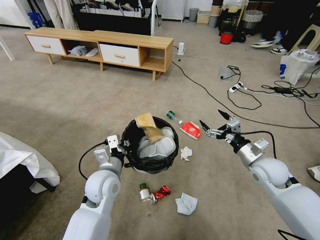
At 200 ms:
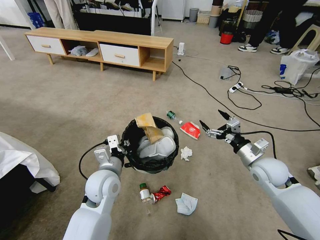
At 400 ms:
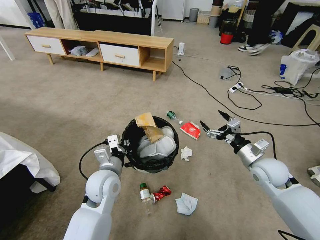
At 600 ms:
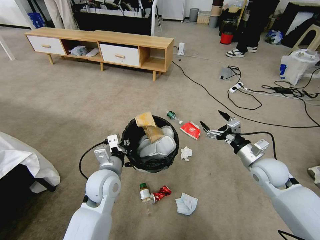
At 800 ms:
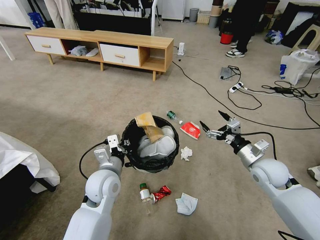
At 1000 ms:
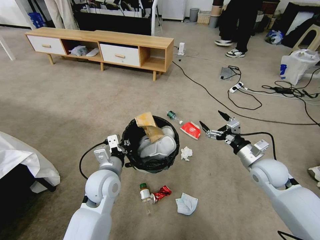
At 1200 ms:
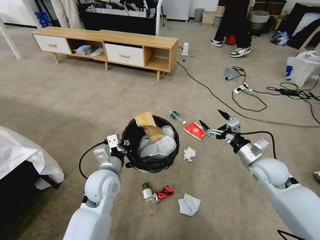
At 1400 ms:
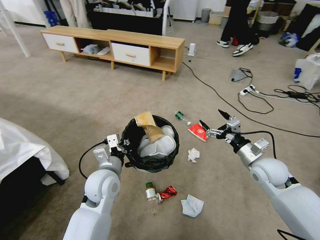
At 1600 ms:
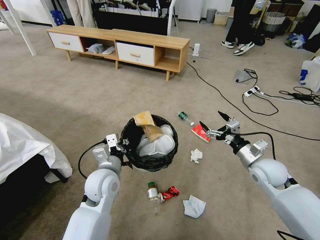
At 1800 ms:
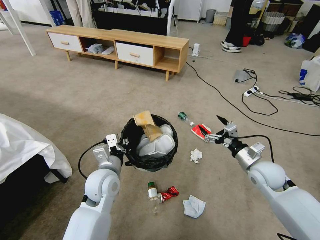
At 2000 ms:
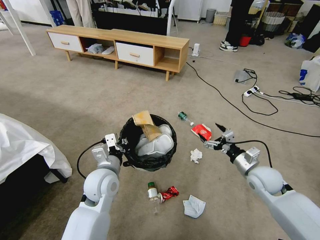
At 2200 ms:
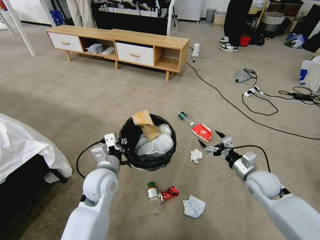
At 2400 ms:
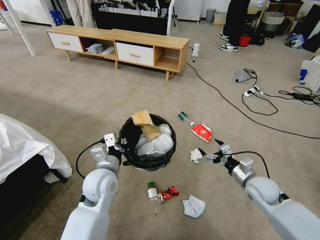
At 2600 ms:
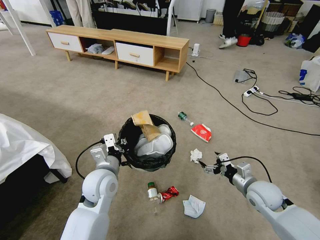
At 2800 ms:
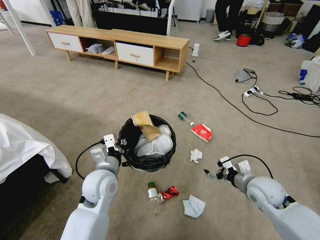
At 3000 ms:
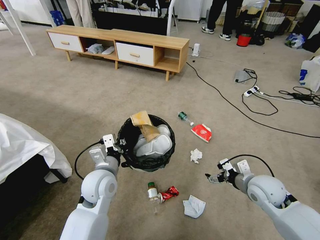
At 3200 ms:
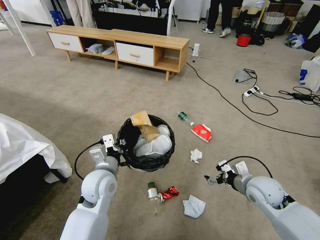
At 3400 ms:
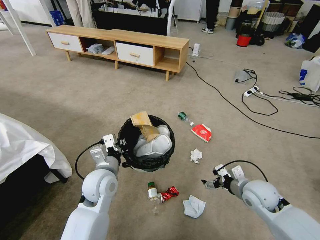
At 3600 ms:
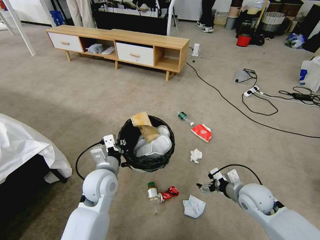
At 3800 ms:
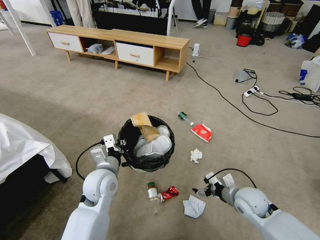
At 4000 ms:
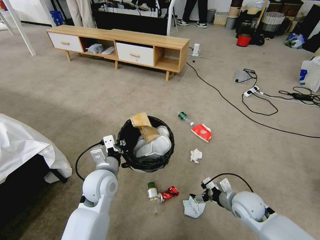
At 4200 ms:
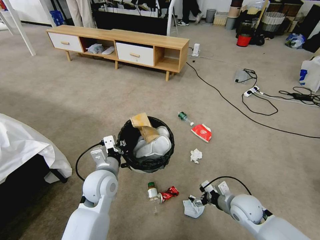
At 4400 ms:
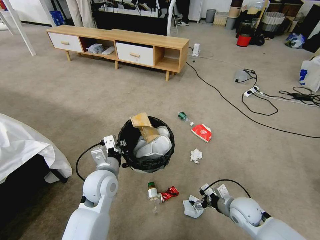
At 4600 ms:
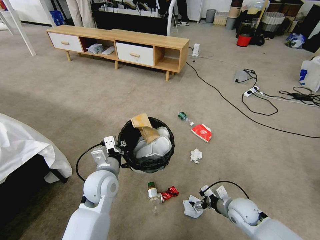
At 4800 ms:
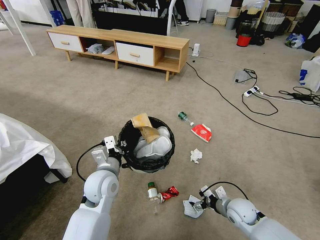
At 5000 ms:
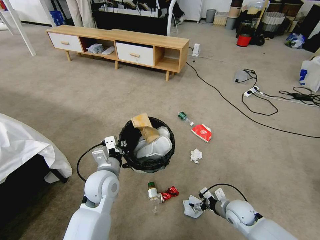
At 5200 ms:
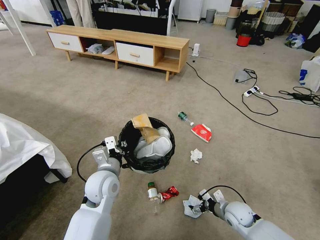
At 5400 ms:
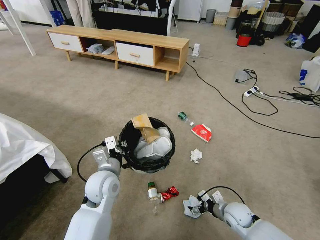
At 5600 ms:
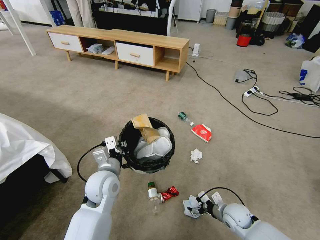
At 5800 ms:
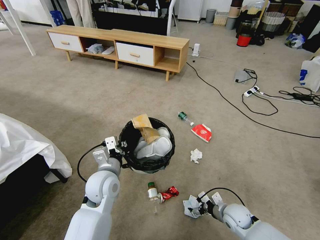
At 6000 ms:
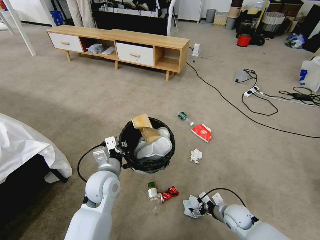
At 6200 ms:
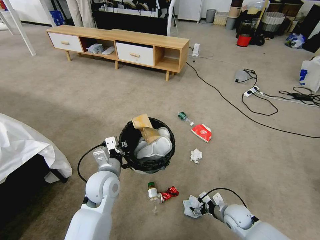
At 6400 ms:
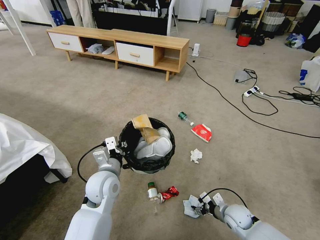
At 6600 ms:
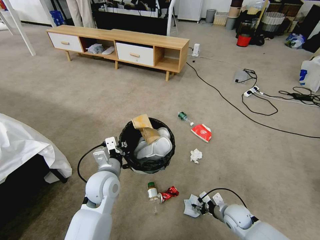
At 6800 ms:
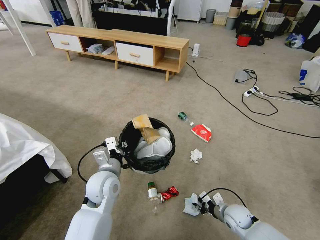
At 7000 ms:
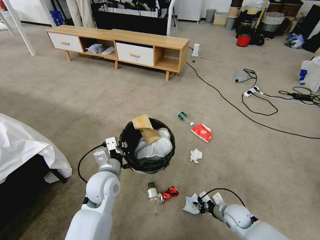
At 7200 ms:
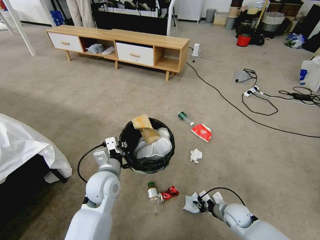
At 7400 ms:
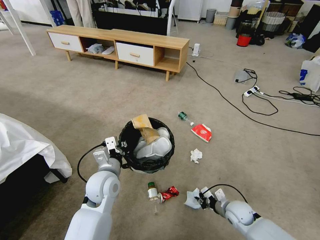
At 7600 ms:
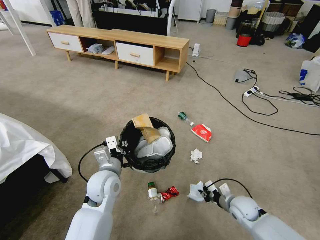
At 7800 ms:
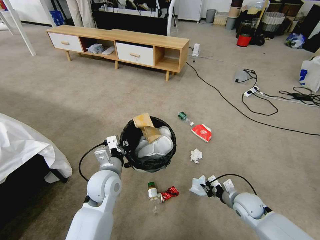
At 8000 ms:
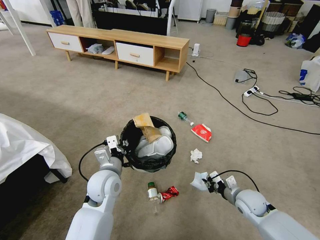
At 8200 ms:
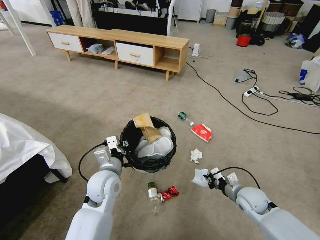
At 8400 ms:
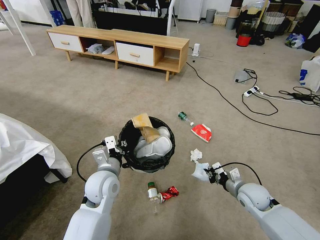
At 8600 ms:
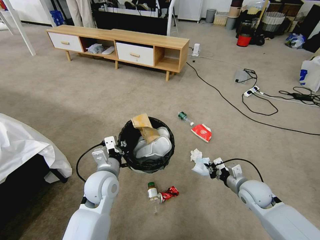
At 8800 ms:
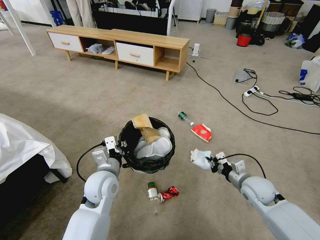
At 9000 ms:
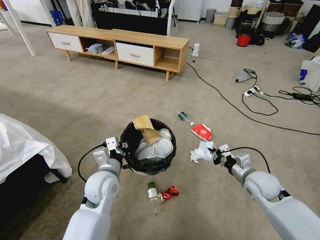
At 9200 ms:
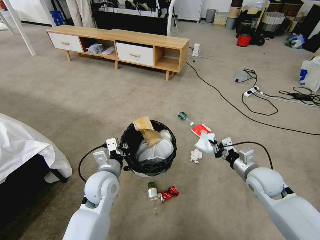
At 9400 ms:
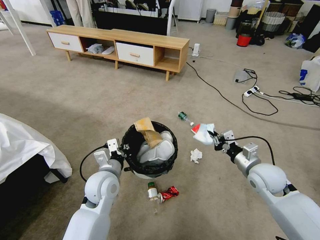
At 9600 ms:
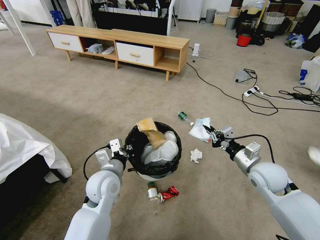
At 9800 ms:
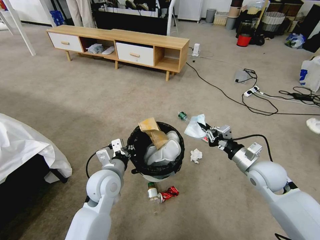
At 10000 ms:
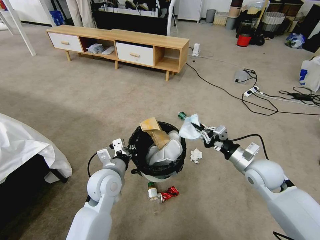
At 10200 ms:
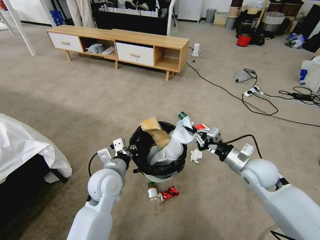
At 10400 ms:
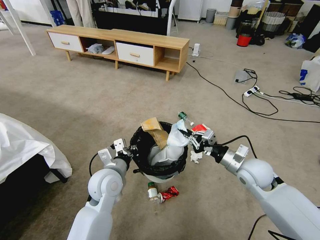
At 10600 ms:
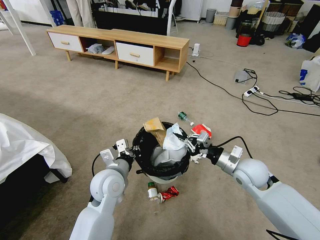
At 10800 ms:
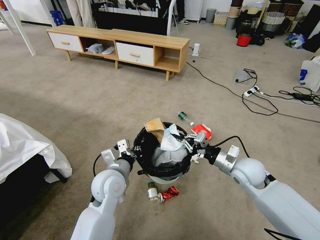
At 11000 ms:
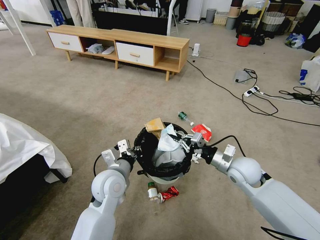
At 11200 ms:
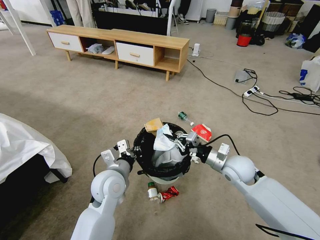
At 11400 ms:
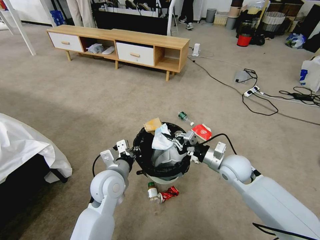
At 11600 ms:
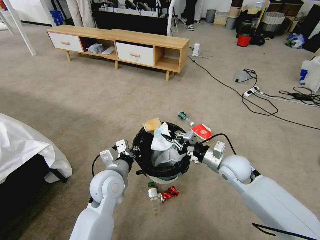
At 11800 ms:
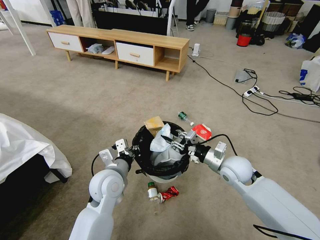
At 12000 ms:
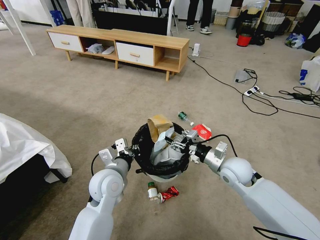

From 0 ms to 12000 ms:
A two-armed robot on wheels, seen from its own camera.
Task of the whole recording: Pick up the trash bin and place the garbage on the floor into it.
From 1600 ms to 3000 ms: The right gripper reaches approximately 10 cm downward, then returns.
From 3000 ms to 4400 ms: The right gripper heads downward, covering some 10 cm.
From 4400 ms to 6000 ms: The right gripper is displaced downward by roughly 5 cm.
From 6000 ms to 7600 ms: The right gripper closes up.
From 7600 ms to 9000 ms: The right gripper moves upward, roughly 15 cm.
From 9000 ms to 10400 ms: The right gripper heads upward, covering roughly 5 cm.
From 10400 ms to 12000 ms: The right gripper shifts approximately 5 cm to the left, and opens its fingers.

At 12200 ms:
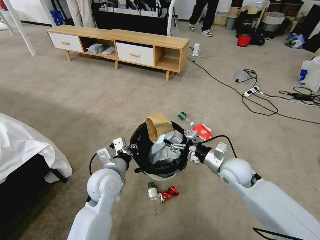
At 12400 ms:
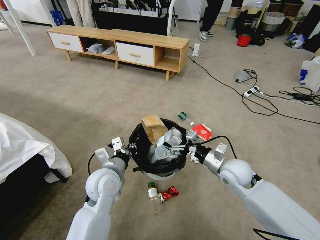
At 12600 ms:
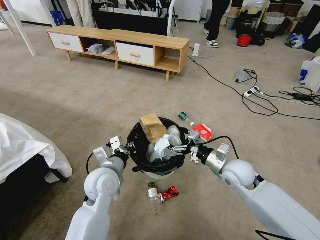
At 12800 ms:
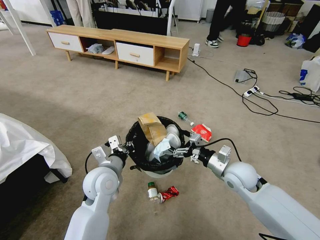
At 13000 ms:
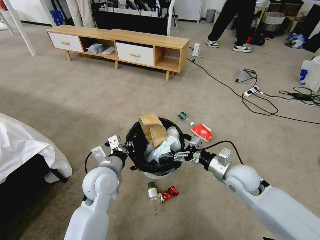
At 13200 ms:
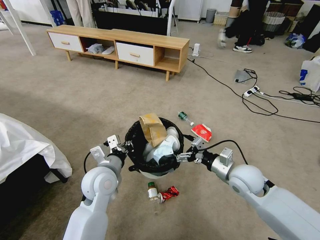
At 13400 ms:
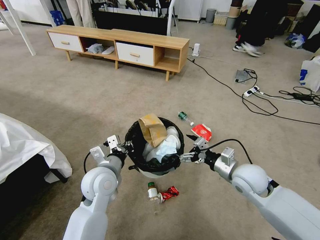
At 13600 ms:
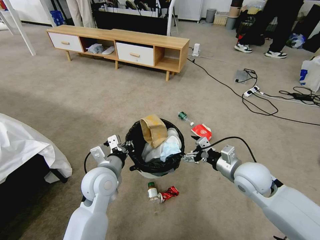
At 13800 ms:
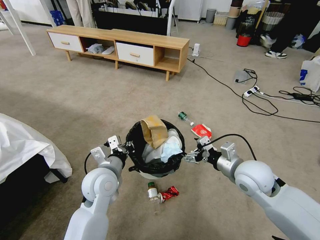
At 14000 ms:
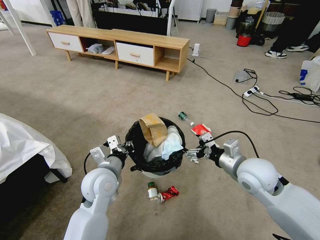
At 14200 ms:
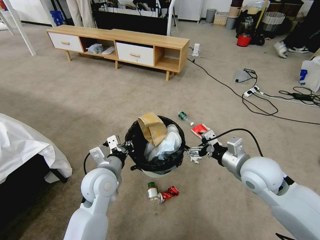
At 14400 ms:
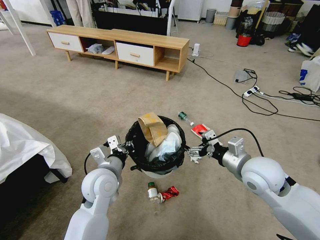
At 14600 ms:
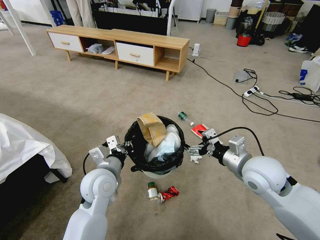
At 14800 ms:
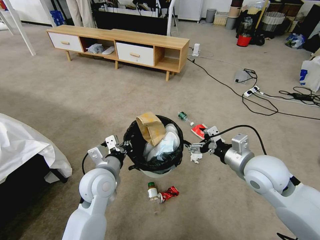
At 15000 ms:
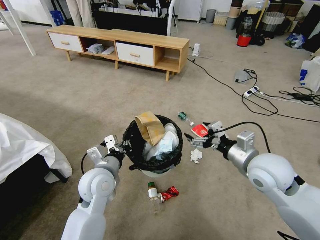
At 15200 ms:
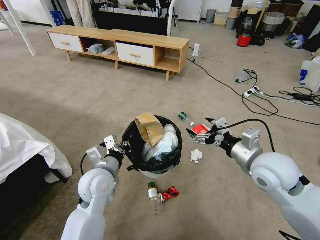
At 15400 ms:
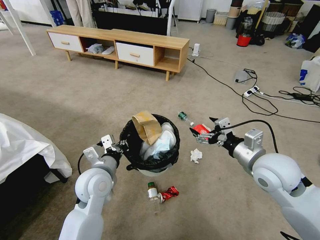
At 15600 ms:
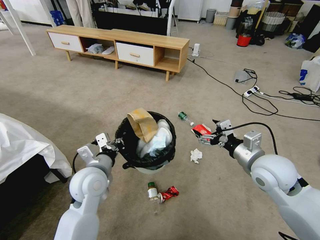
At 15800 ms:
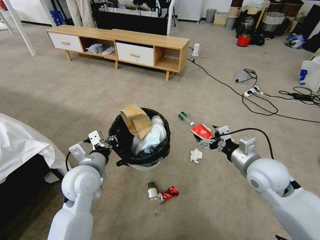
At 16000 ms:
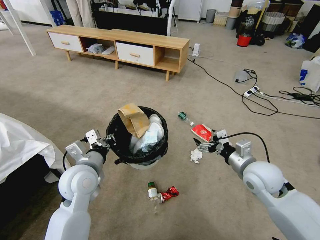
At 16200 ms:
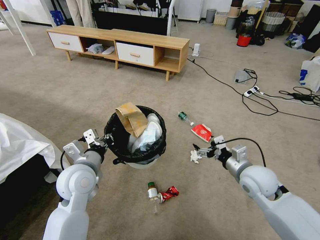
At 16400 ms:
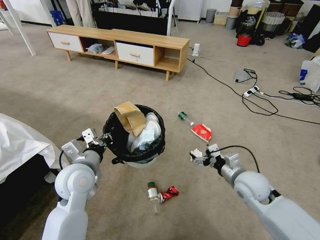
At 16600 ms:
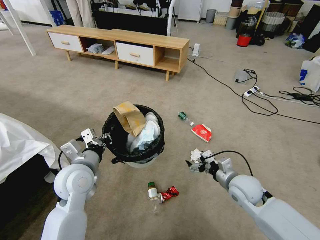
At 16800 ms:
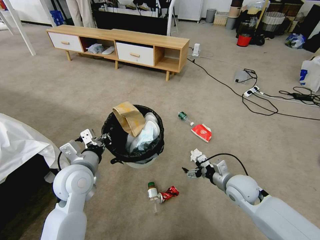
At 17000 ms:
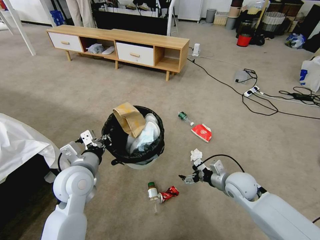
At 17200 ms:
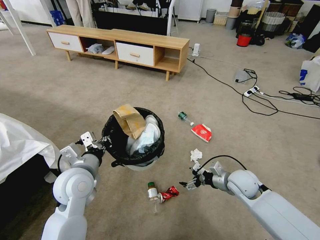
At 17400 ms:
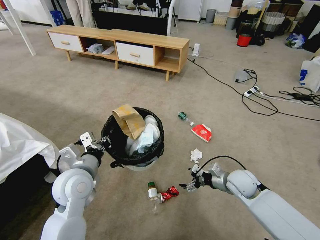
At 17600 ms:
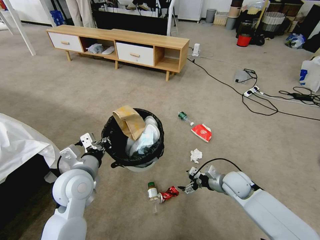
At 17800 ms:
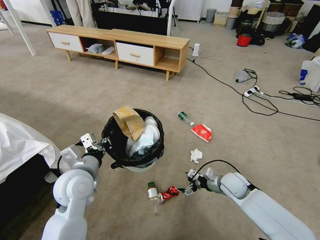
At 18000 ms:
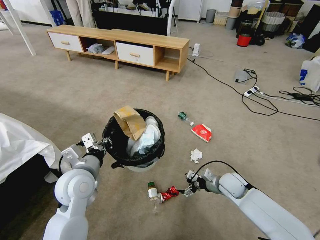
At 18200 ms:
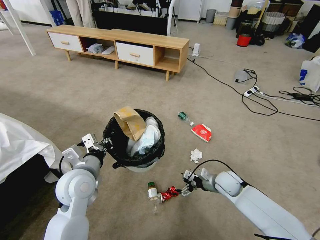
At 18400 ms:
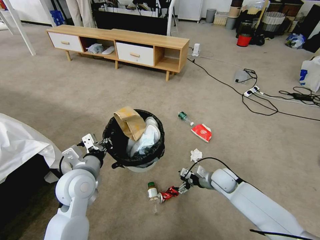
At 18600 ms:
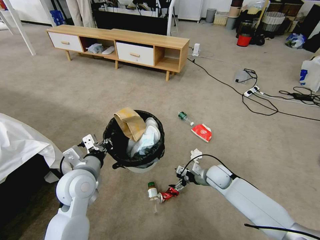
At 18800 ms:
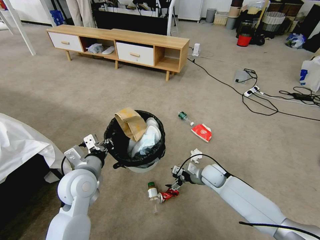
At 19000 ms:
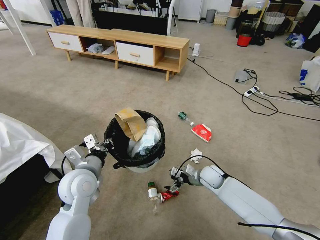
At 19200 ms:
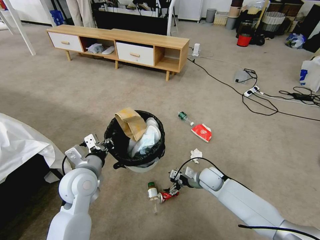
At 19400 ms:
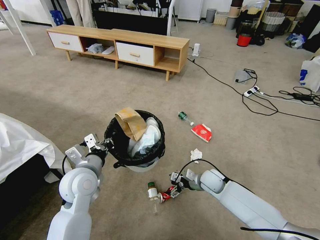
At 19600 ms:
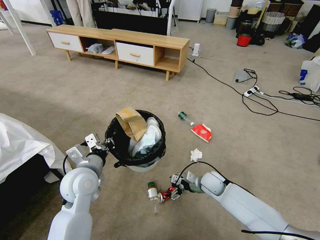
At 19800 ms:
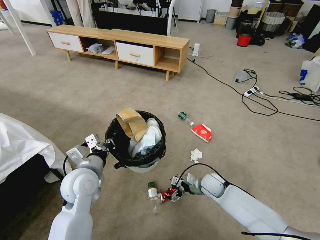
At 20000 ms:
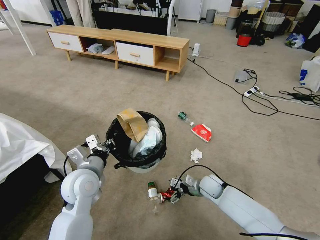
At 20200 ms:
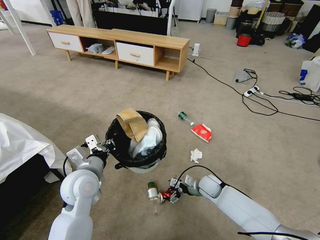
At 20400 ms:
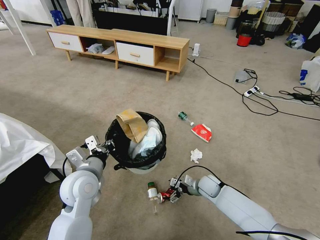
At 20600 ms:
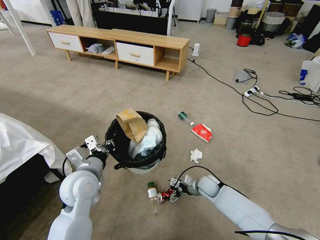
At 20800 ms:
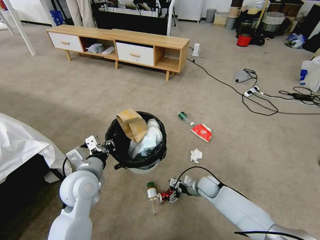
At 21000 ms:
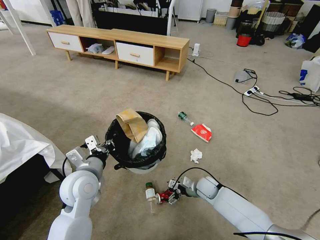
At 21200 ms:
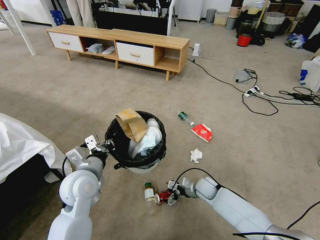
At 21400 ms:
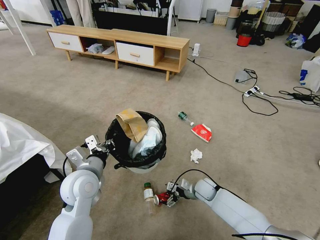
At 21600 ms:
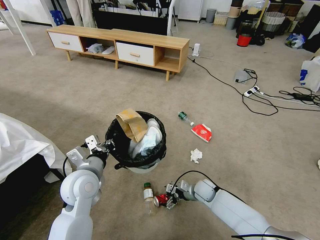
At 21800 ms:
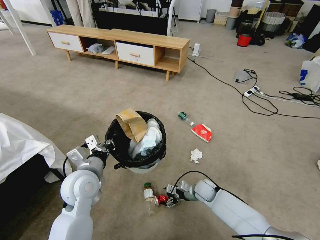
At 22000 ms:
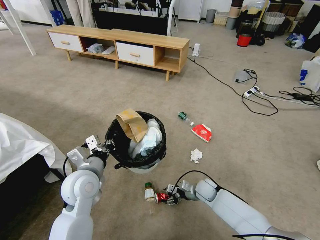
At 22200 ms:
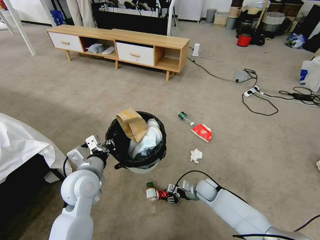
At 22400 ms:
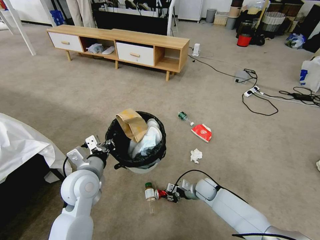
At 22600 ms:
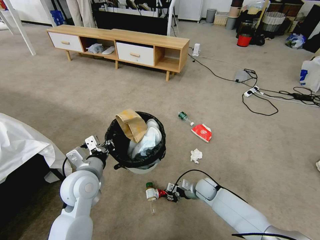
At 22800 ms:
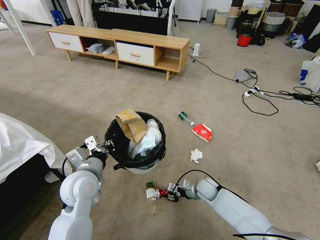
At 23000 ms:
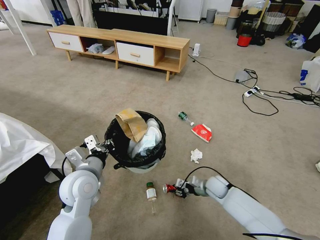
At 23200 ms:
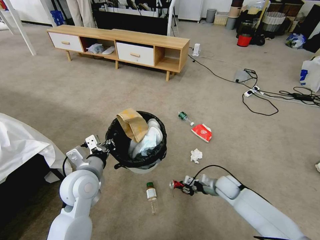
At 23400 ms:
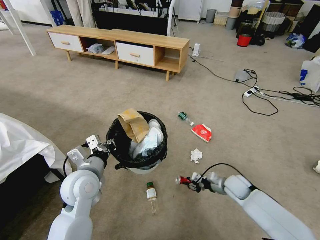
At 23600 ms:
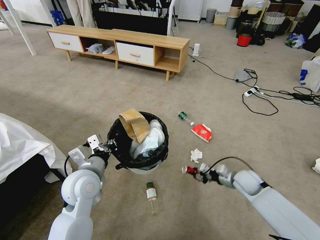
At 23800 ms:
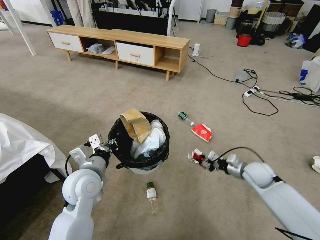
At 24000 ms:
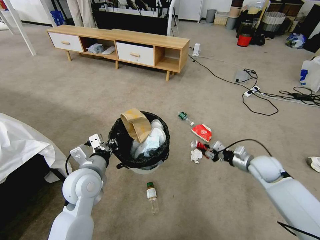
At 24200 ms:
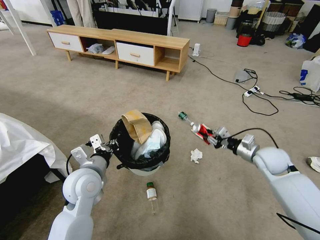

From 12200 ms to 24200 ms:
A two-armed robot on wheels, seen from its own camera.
Task of the whole recording: Pick up the trash bin and place the garbage on the floor into it.
From 12200 ms to 13800 ms: The right gripper travels upward by approximately 5 cm.
From 13800 ms to 15200 ms: The right gripper shifts roughly 5 cm upward.
From 15200 ms to 16600 ms: The right gripper moves downward, approximately 15 cm. Meanwhile the left gripper is displaced to the left by about 5 cm.
From 16600 ms to 18200 ms: The right gripper is displaced downward and forward by roughly 10 cm.
From 18200 ms to 19800 ms: The right gripper goes roughly 5 cm to the left.
From 19800 ms to 21200 ms: The grippers stay close to where they were, moving slightly.
From 21200 ms to 22600 ms: The right gripper closes.
From 22600 ms to 24200 ms: The right gripper shifts roughly 30 cm upward and to the right.
